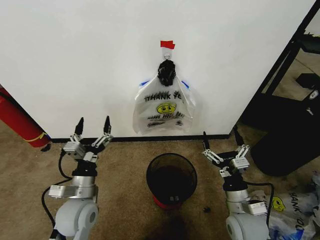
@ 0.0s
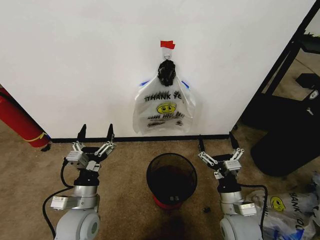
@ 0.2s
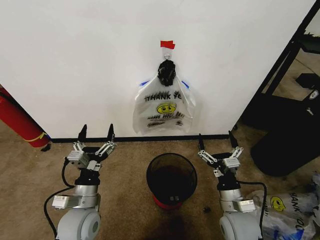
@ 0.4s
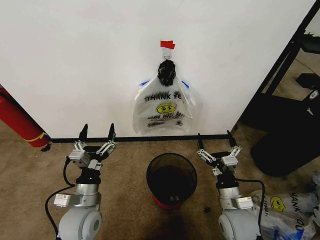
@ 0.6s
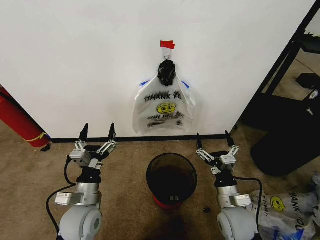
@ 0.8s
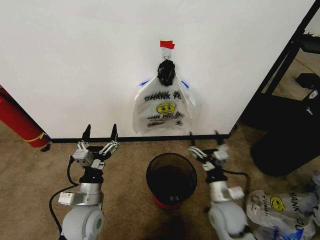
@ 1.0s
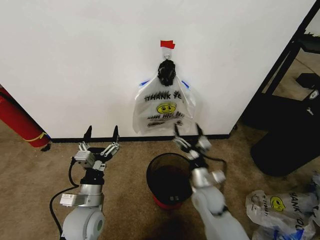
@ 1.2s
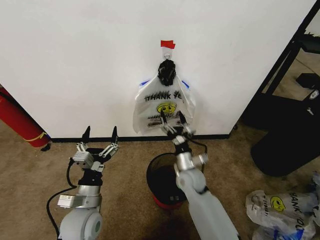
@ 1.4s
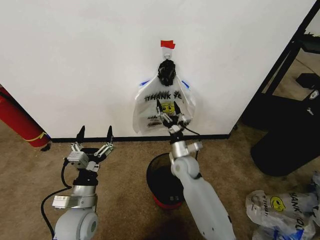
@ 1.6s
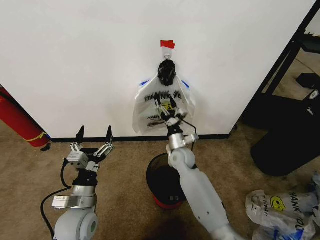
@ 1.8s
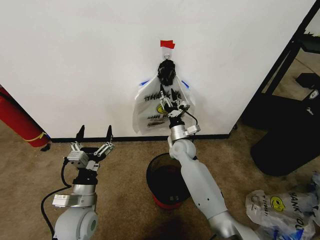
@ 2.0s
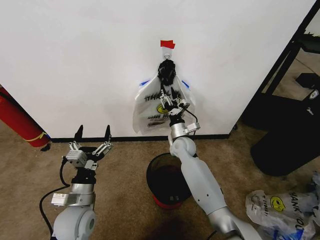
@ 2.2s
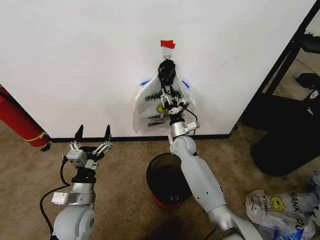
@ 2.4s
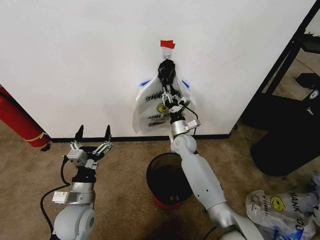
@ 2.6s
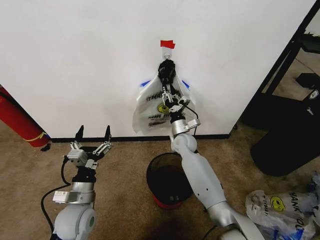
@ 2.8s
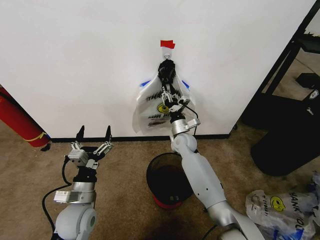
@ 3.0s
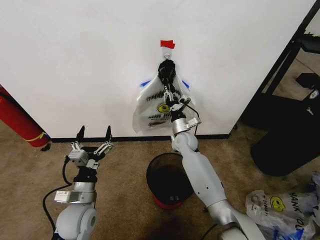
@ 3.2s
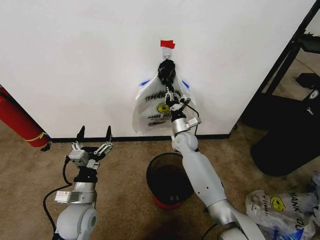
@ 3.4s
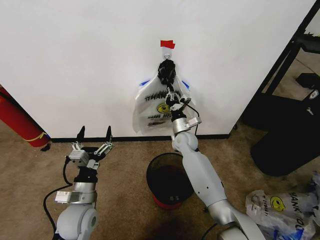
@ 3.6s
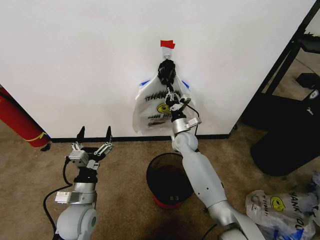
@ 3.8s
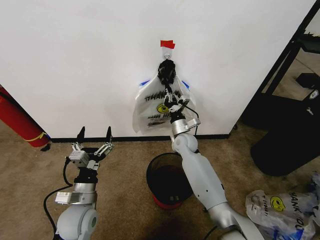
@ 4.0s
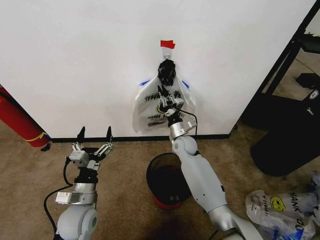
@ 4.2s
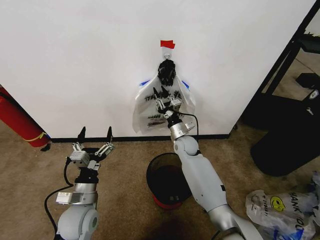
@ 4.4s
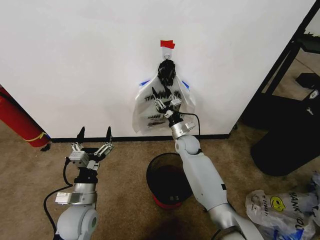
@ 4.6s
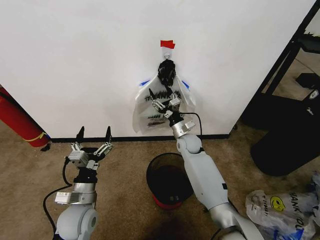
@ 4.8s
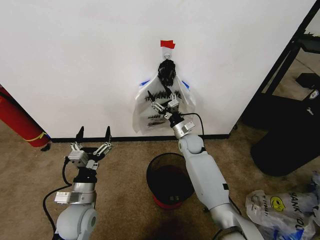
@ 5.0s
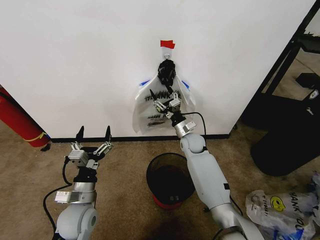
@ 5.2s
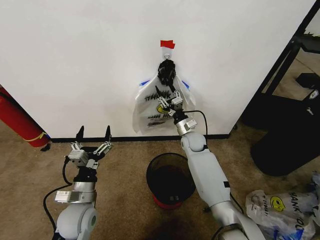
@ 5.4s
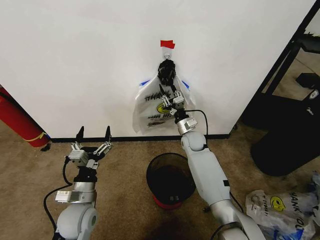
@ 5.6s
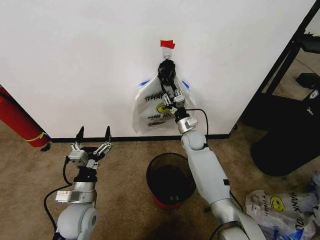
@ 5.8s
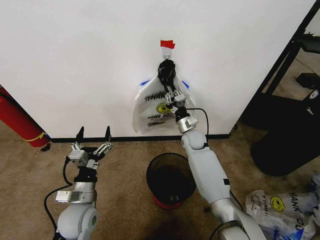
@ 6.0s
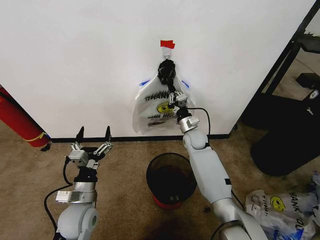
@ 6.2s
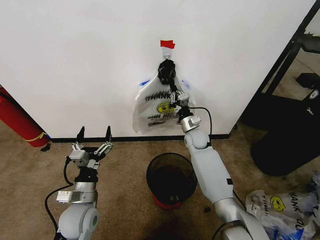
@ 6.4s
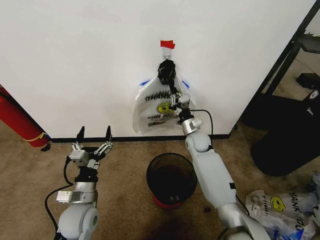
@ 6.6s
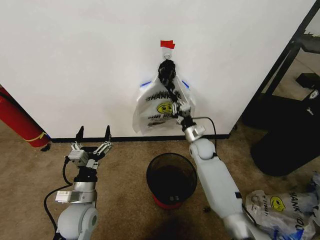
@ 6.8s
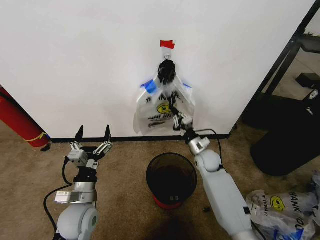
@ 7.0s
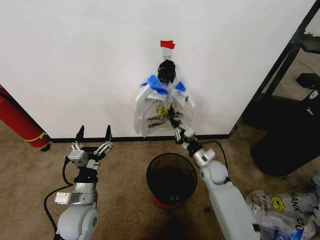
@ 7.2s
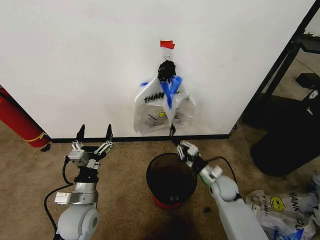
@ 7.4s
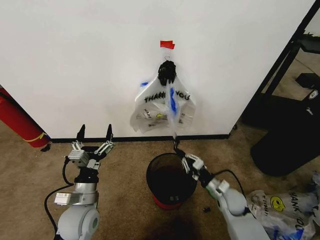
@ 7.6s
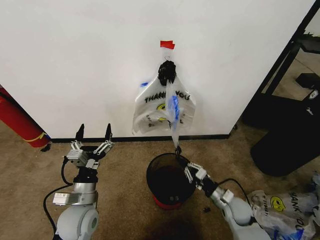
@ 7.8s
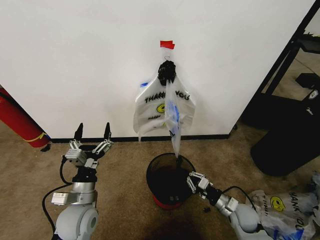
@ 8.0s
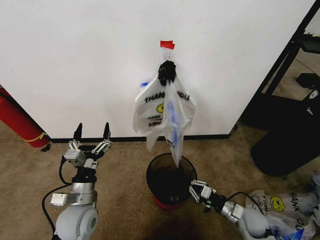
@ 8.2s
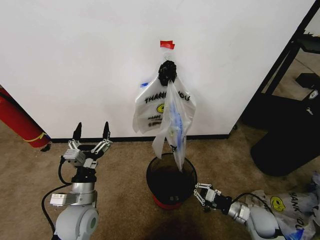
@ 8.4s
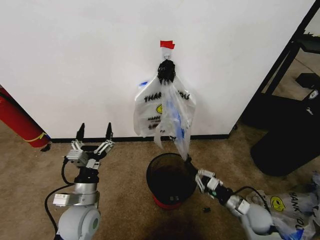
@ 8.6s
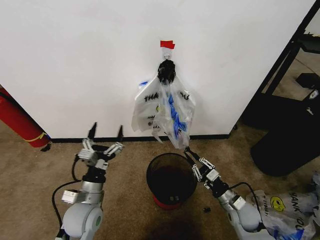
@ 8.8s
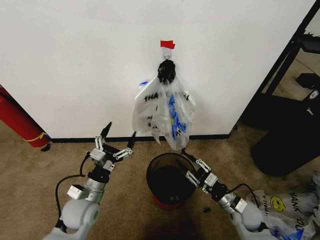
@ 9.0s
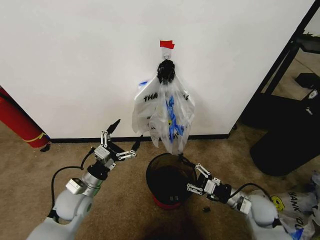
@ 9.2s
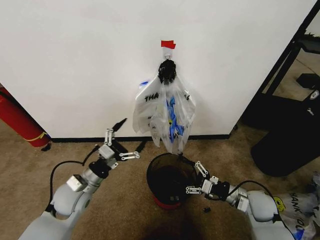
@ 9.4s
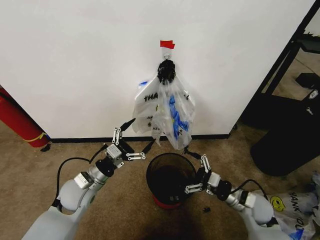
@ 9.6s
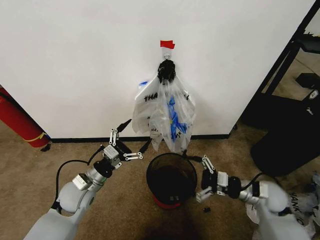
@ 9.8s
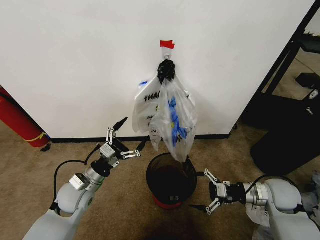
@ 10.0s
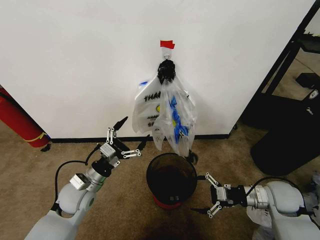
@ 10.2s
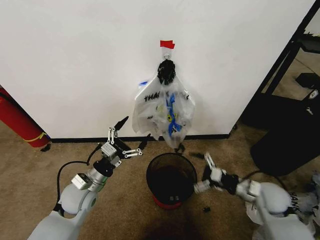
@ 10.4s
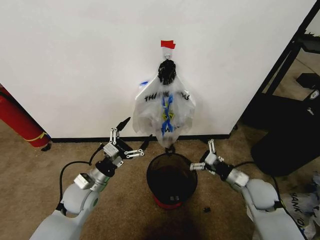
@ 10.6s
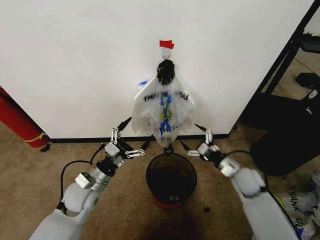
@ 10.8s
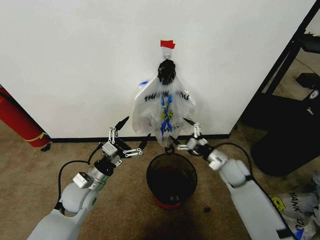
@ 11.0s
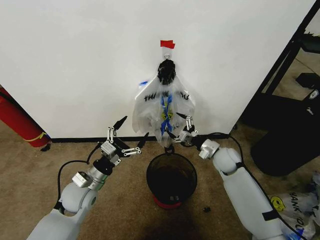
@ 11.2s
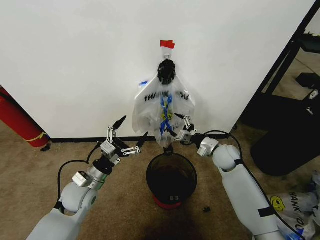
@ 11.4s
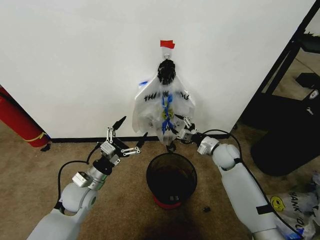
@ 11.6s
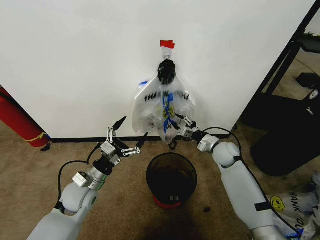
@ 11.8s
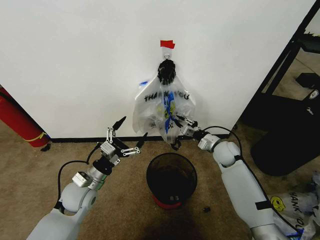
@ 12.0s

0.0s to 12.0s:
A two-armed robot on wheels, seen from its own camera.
Task of the whole recording: Pick up the garbage bag from the wall and place it over the trash bin.
1.6s to 3.0s: The right gripper heads forward, covering roughly 10 cm, and closes up.
4.4s to 6.0s: The right gripper opens, then closes once more.
6.0s to 7.6s: The right gripper shifts approximately 25 cm backward, to the right and downward.
7.6s to 9.0s: The right gripper moves about 10 cm to the right and comes back.
9.0s to 10.4s: The right gripper moves upward and to the right, approximately 10 cm, and opens its fingers.
10.4s to 12.0s: The right gripper is displaced forward and to the left by about 20 cm, and closes.

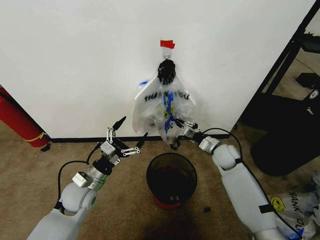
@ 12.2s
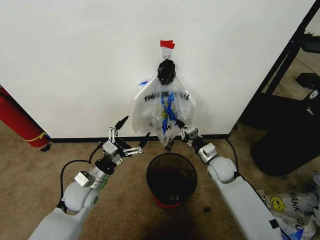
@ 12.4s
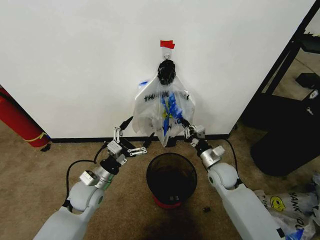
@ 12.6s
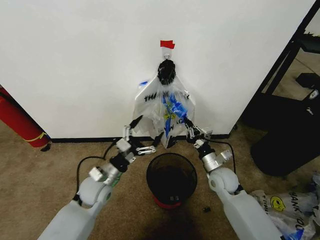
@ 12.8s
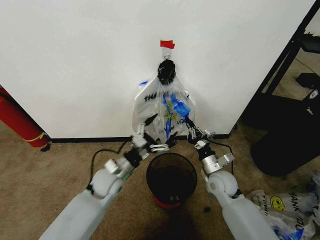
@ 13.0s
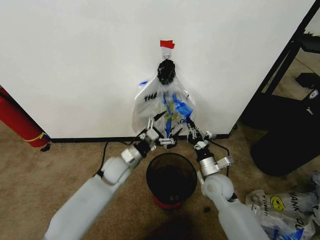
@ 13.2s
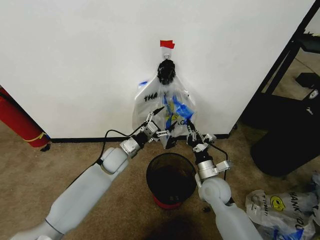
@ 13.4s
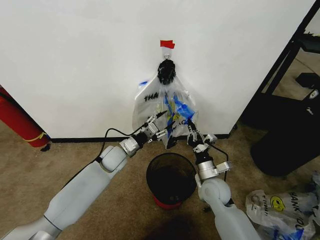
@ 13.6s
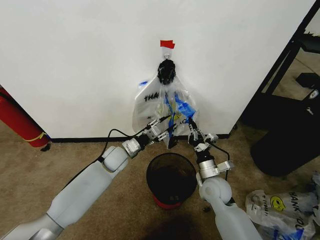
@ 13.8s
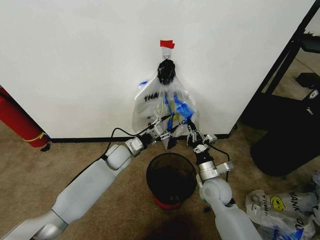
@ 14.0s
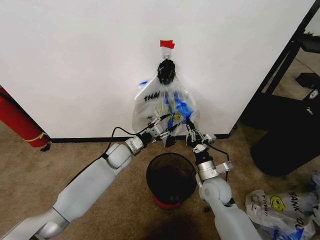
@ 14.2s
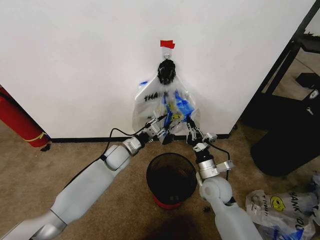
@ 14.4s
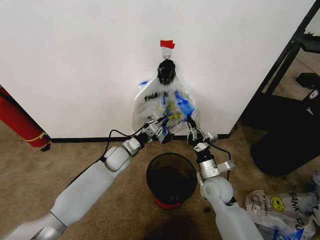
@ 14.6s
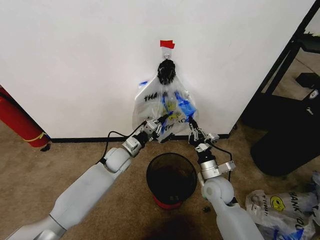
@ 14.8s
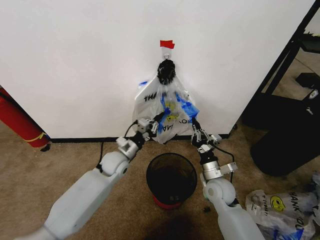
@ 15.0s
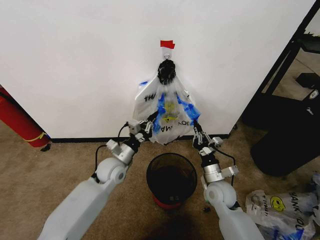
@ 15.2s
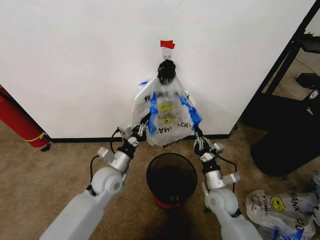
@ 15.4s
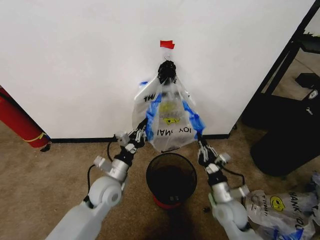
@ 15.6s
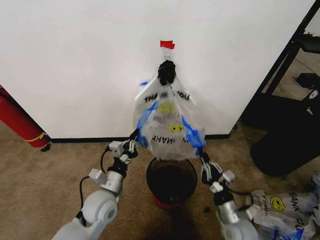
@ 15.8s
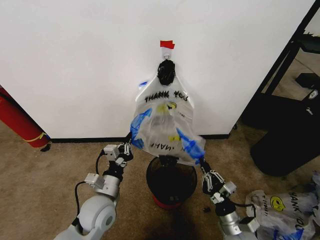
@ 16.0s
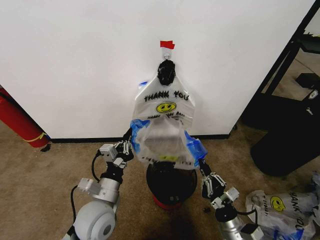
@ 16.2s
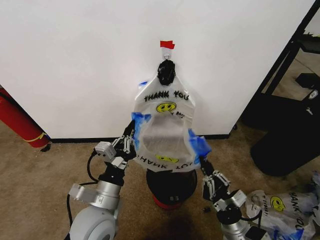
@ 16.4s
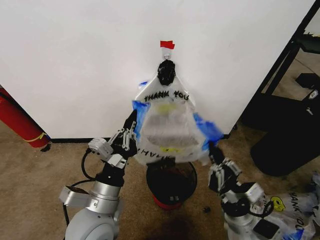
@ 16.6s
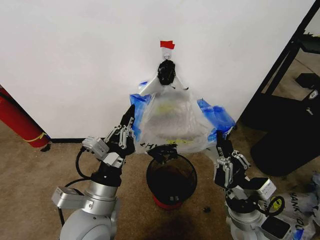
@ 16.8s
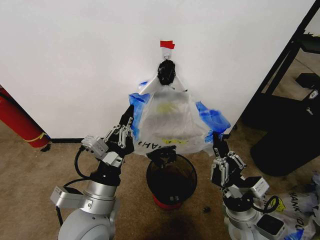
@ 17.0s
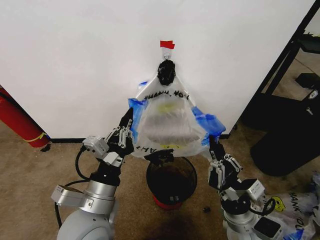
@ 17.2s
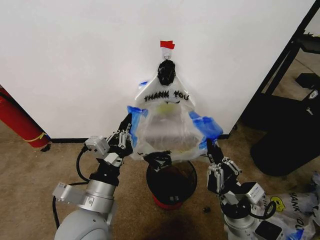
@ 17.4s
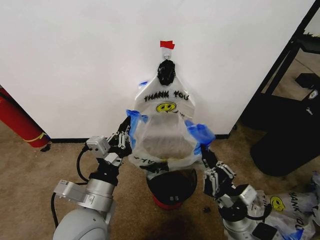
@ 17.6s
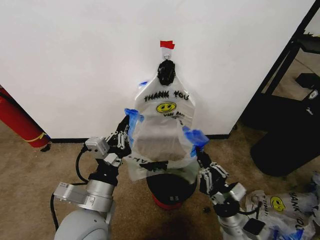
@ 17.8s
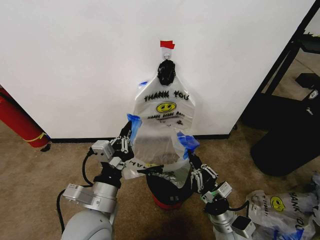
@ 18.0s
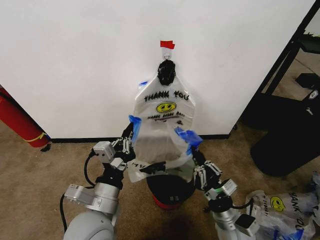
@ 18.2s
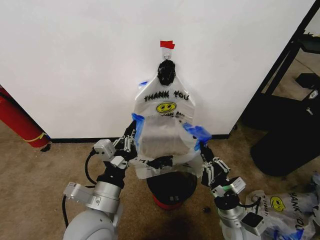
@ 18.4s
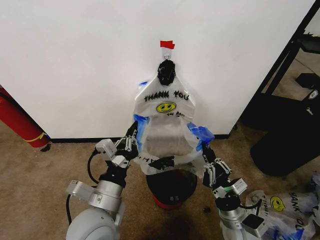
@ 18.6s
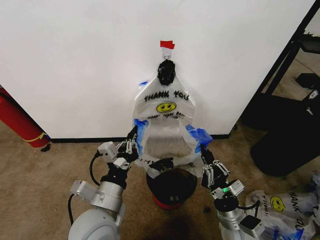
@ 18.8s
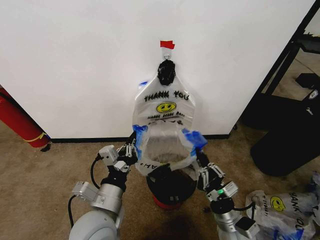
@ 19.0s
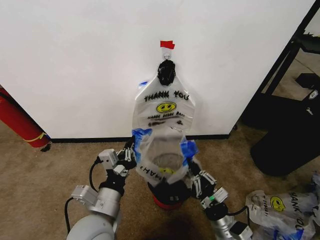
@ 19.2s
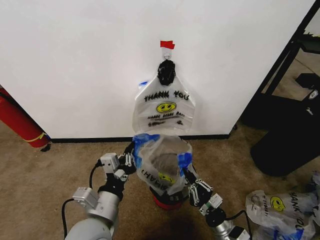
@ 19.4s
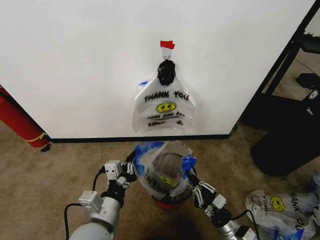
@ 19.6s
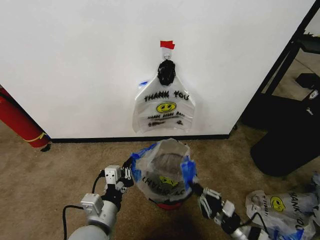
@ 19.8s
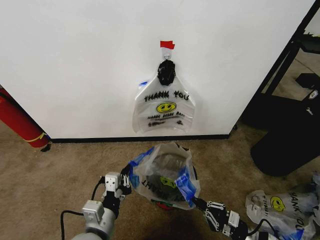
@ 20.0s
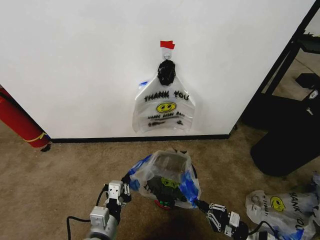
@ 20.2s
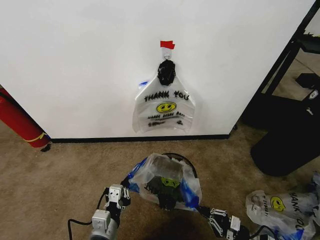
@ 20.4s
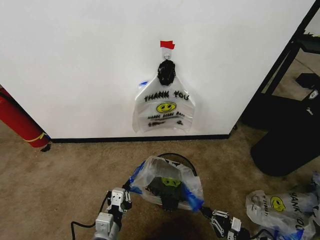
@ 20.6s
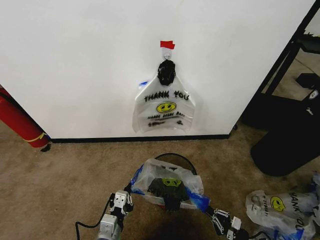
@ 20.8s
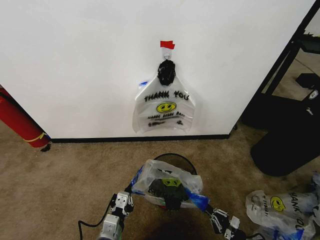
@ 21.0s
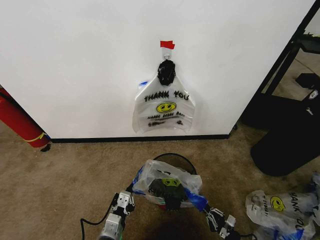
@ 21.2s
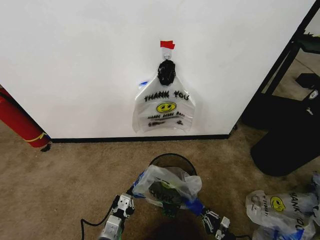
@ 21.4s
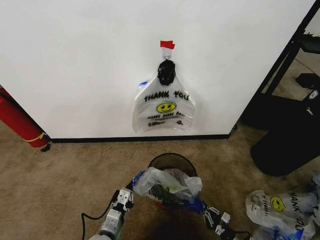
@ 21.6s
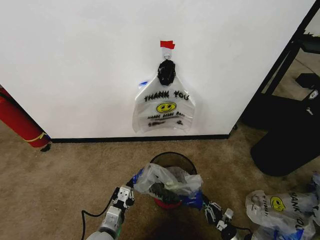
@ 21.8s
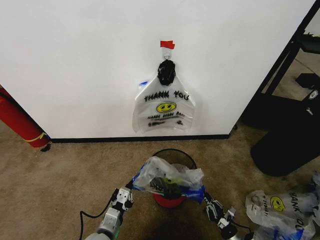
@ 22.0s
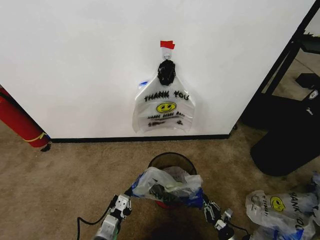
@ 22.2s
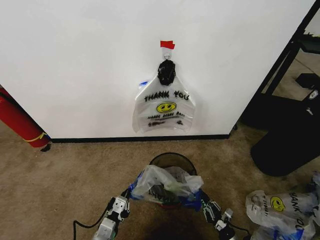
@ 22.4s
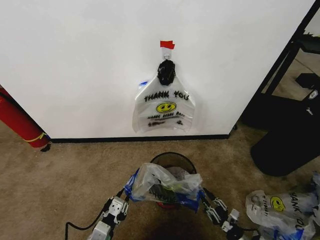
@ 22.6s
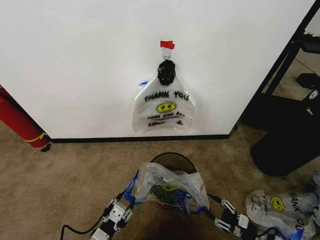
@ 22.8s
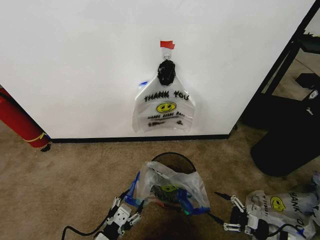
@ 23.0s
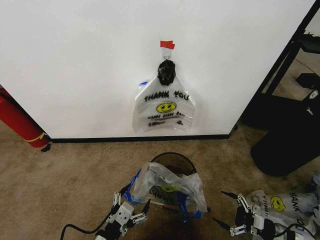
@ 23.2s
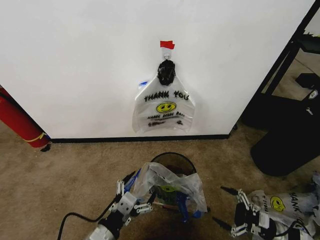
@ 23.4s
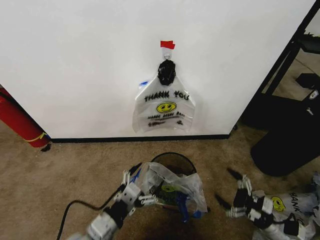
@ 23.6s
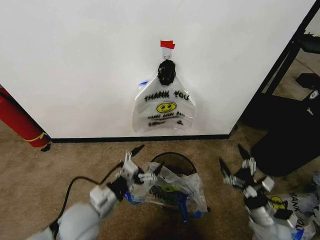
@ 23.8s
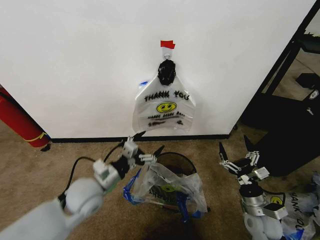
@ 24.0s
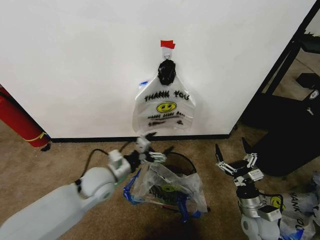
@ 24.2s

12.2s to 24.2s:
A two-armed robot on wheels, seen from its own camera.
Task of the whole recording: Pick up the garbage bag from the wall and place it over the trash bin.
12.2s to 13.8s: The left gripper shifts some 15 cm forward and to the right, and closes its fingers. Meanwhile the right gripper heads backward and to the left, covering about 15 cm.
13.8s to 15.2s: The left gripper moves backward, about 5 cm, and closes up.
15.2s to 16.6s: The right gripper is displaced backward and upward by roughly 15 cm. The left gripper shifts some 25 cm backward and upward.
16.6s to 18.2s: The right gripper travels downward by roughly 5 cm.
18.2s to 19.8s: The right gripper shifts about 10 cm to the right and downward. Meanwhile the left gripper changes place by some 5 cm.
19.8s to 21.2s: Both grippers travel together downward, approximately 15 cm.
21.2s to 22.6s: The left gripper moves about 5 cm; the right gripper opens.
22.6s to 24.2s: The left gripper moves forward and upward, approximately 20 cm, and opens up. Meanwhile the right gripper is displaced upward and forward by roughly 20 cm, and opens.
